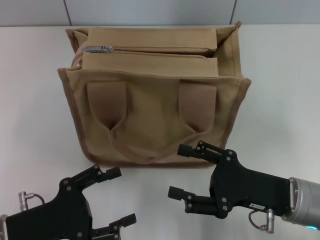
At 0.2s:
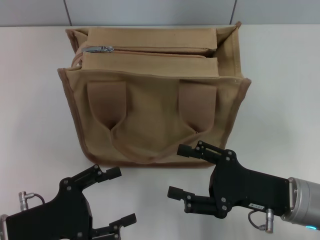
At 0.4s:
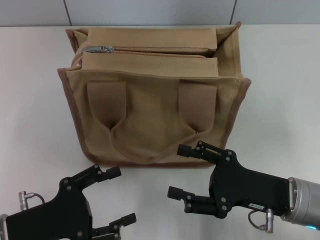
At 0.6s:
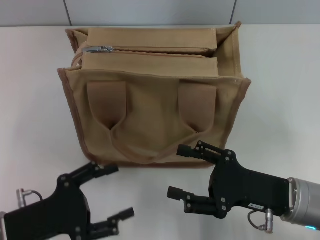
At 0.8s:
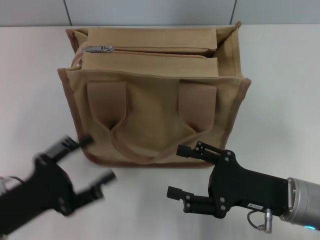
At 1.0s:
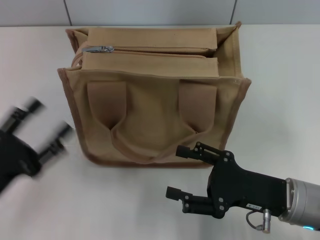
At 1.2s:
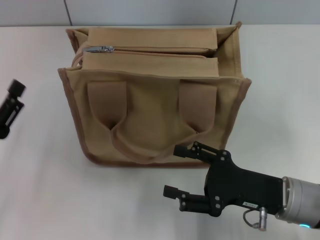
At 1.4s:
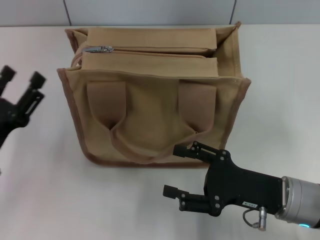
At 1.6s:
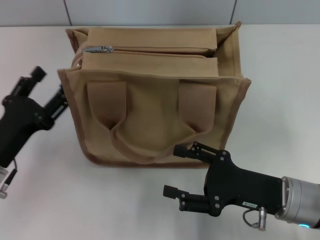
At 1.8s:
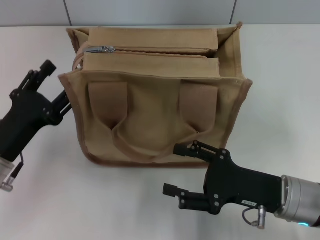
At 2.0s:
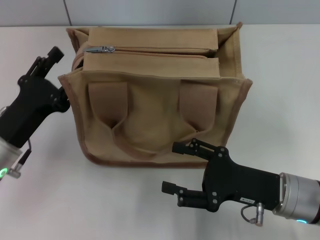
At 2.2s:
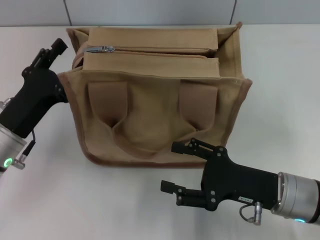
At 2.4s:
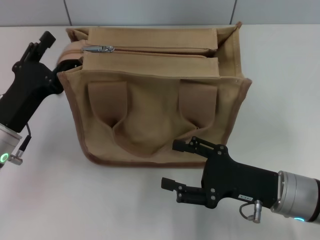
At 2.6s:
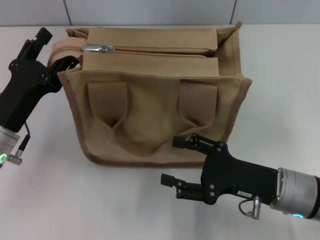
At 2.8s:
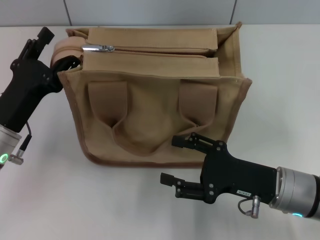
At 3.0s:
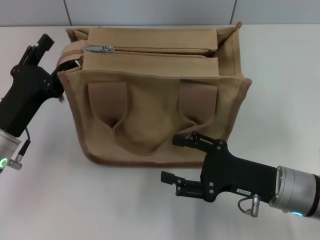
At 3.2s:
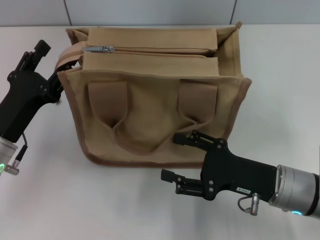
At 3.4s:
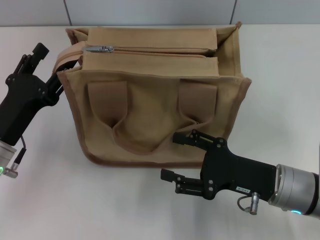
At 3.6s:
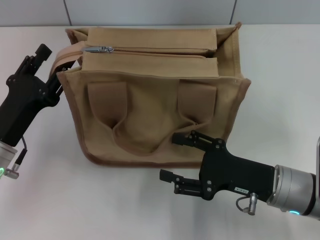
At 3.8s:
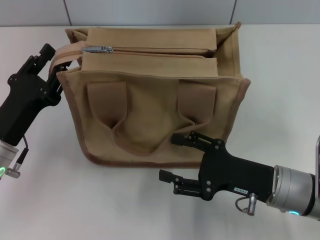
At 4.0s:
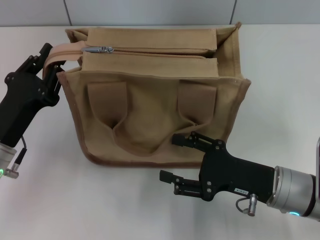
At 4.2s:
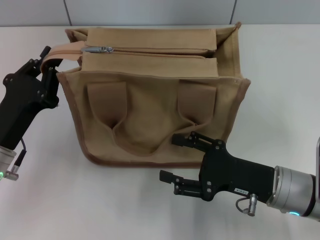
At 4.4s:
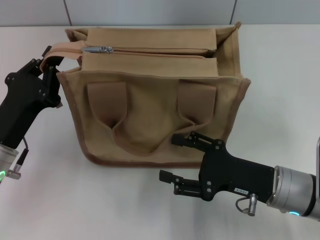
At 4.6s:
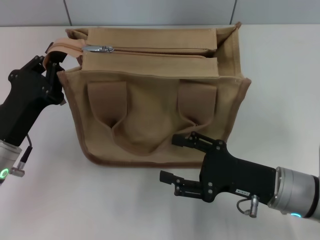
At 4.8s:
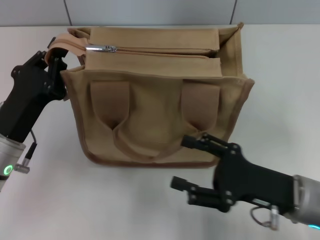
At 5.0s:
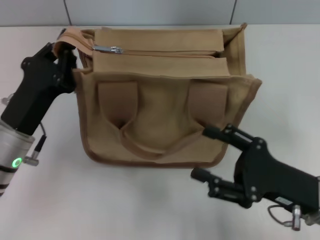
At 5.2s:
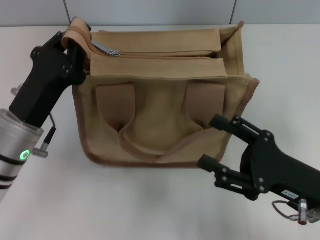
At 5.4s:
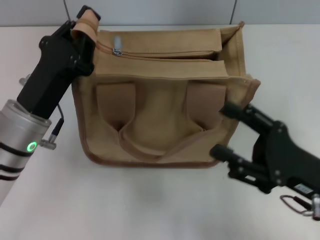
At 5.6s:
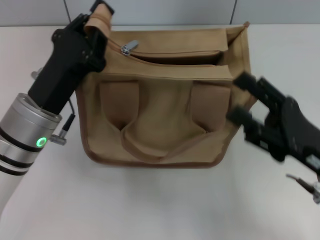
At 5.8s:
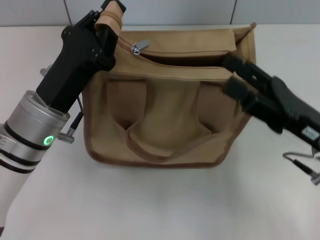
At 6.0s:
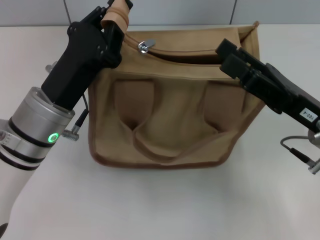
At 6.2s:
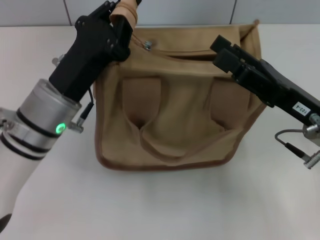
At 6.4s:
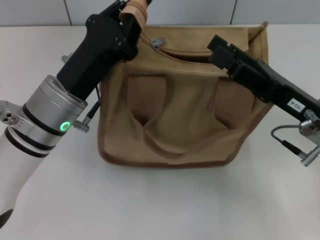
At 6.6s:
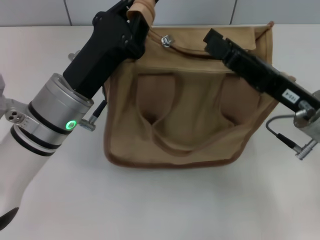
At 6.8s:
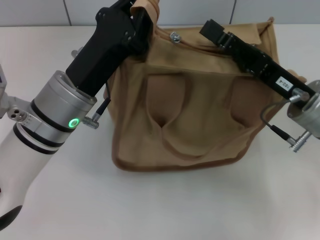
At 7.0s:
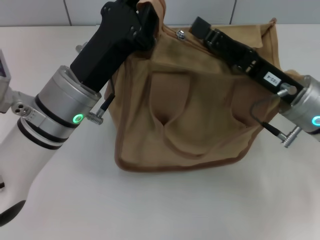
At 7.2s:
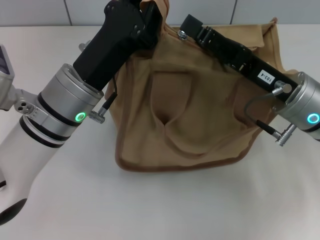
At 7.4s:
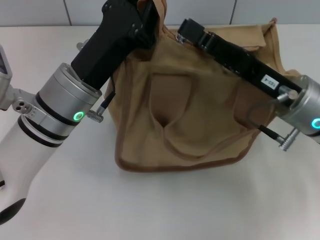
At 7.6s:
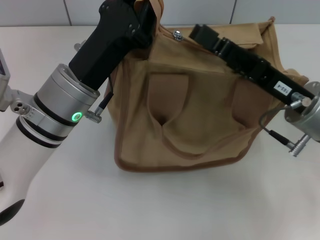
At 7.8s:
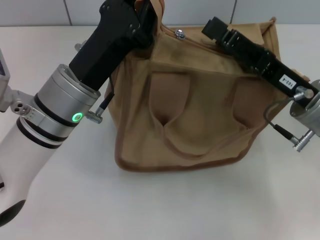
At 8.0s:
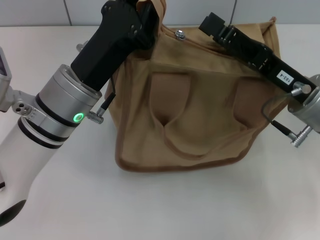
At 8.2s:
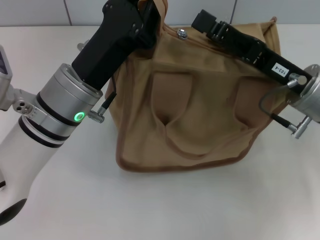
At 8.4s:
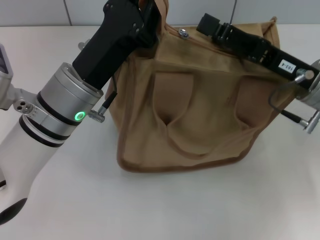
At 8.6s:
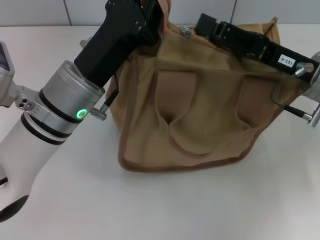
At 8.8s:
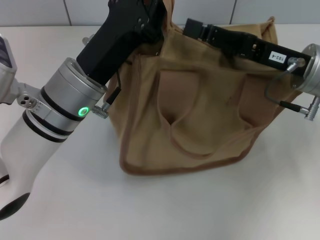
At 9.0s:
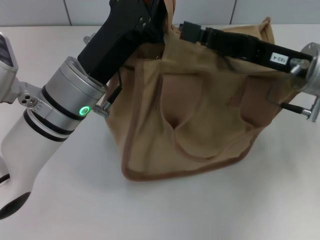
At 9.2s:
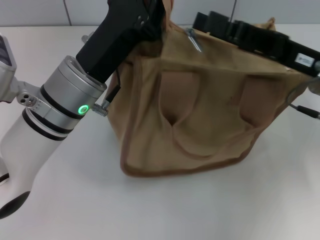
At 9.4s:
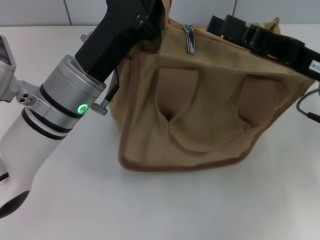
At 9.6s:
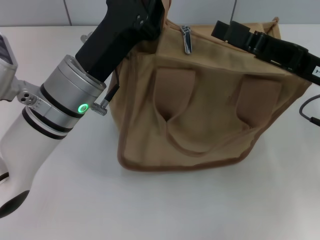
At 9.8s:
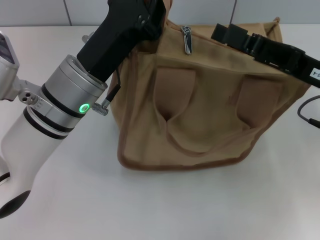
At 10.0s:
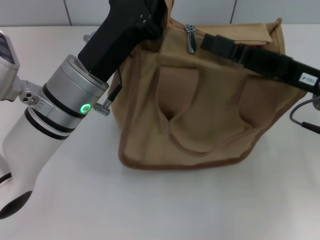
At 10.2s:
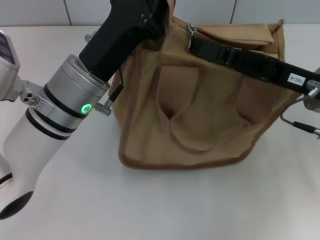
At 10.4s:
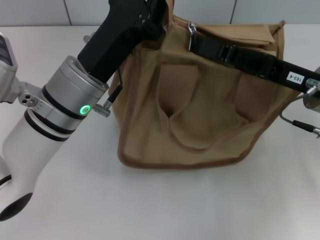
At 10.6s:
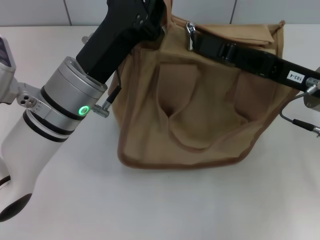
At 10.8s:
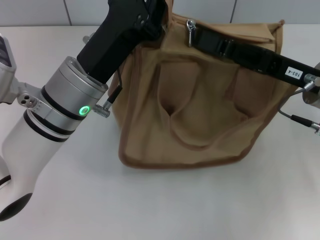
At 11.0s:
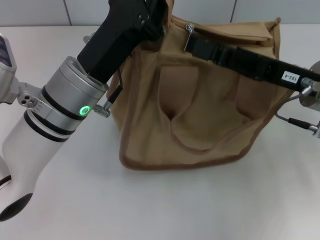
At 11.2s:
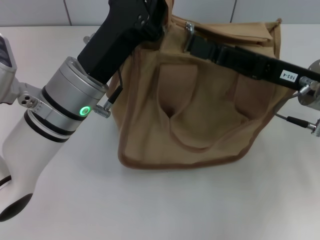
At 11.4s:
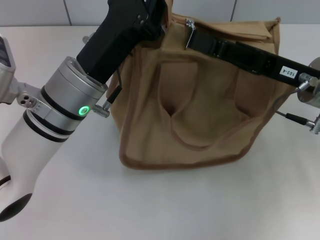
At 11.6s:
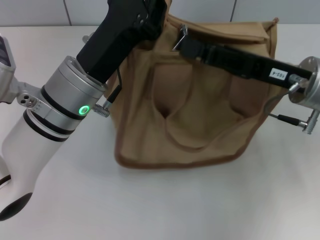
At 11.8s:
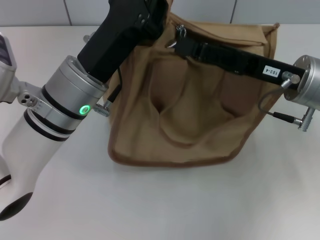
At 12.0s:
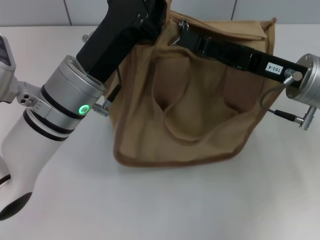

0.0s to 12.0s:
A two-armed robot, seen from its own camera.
0.0s to 1.6s: The left gripper is displaced forward by some 5 cm.
1.6s to 3.0s: The grippers move only a little.
3.0s to 4.4s: The left gripper closes its fingers.
4.4s to 6.0s: The left gripper travels to the right by some 10 cm, while the right gripper goes roughly 5 cm upward.
7.6s to 9.0s: The right gripper moves approximately 5 cm.
9.0s to 12.0s: There are only small adjustments of the grippers.

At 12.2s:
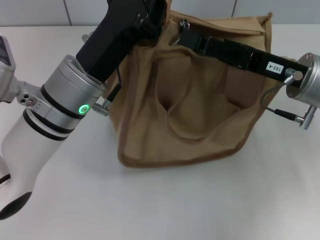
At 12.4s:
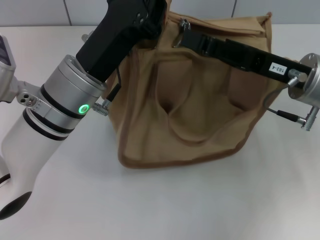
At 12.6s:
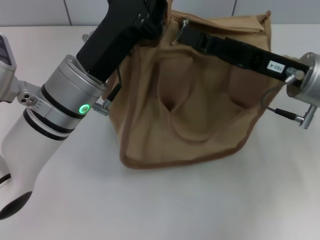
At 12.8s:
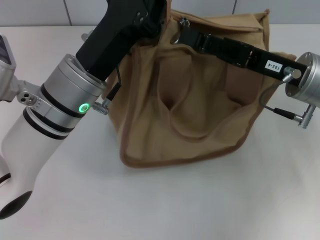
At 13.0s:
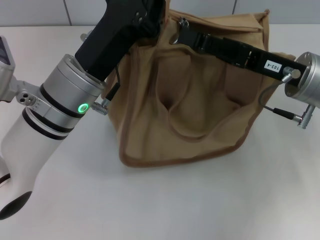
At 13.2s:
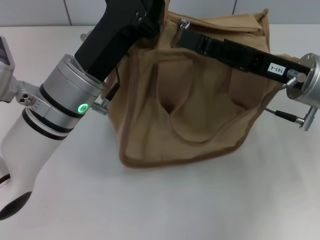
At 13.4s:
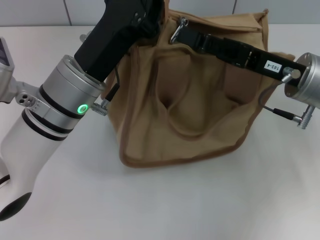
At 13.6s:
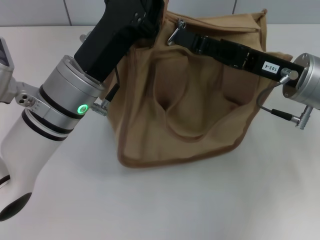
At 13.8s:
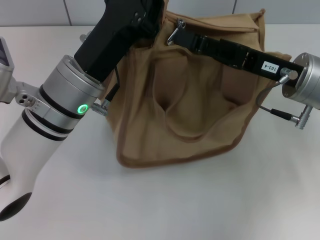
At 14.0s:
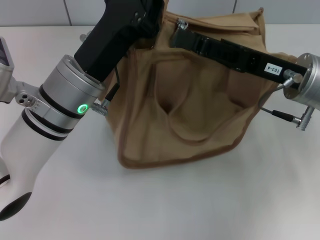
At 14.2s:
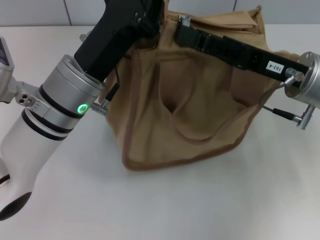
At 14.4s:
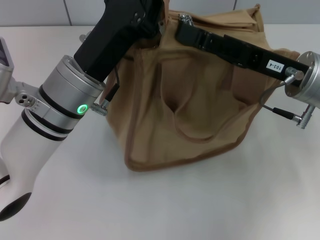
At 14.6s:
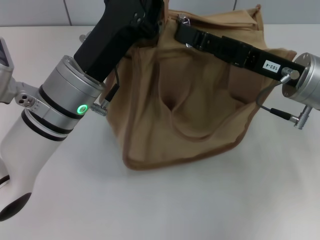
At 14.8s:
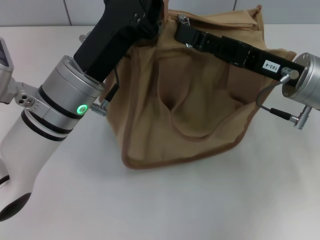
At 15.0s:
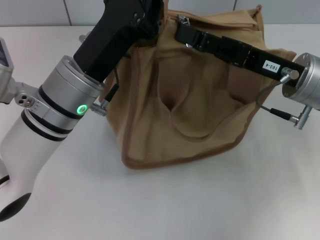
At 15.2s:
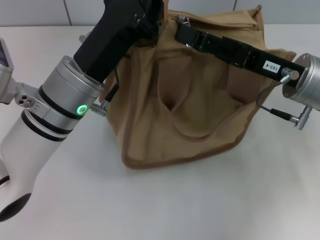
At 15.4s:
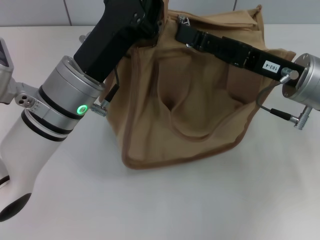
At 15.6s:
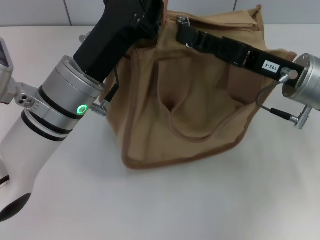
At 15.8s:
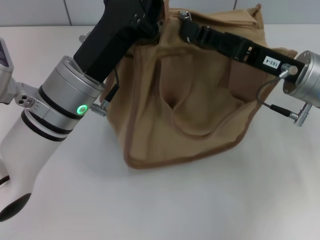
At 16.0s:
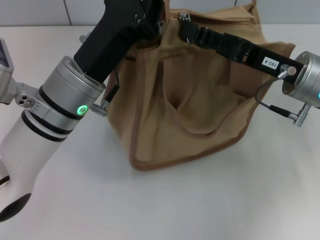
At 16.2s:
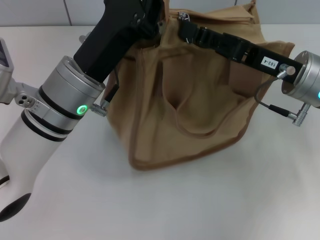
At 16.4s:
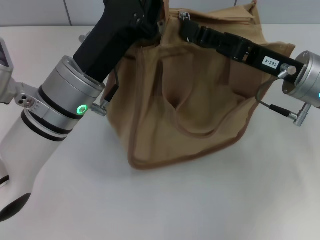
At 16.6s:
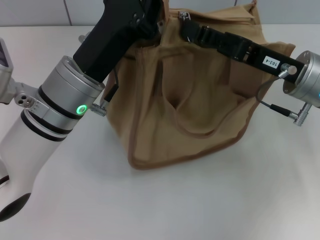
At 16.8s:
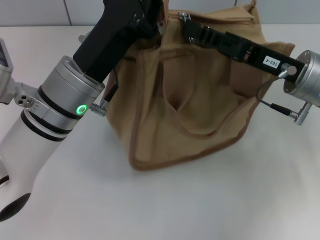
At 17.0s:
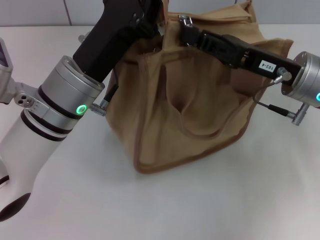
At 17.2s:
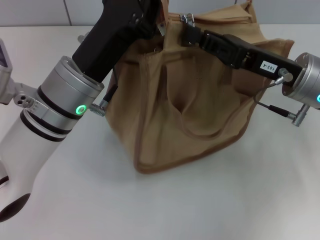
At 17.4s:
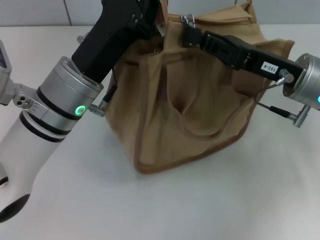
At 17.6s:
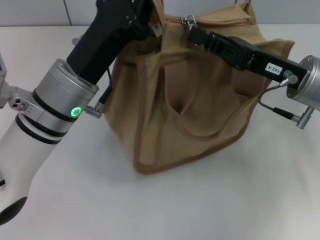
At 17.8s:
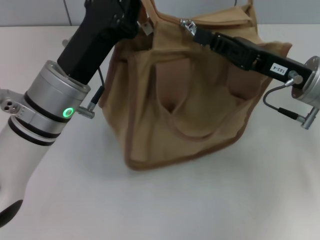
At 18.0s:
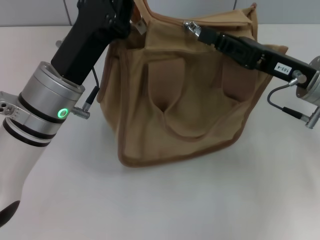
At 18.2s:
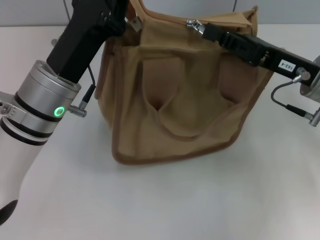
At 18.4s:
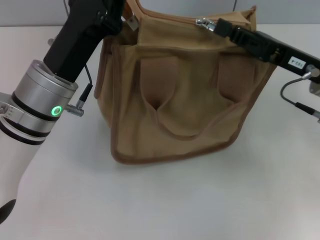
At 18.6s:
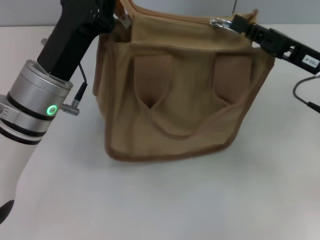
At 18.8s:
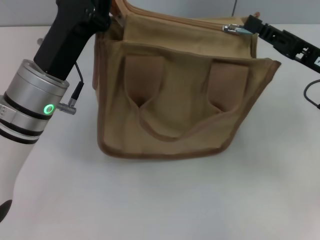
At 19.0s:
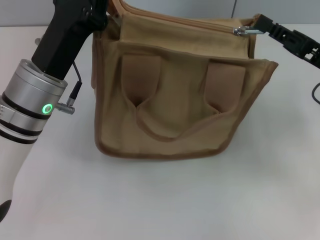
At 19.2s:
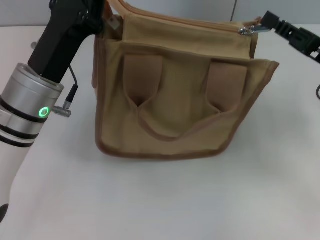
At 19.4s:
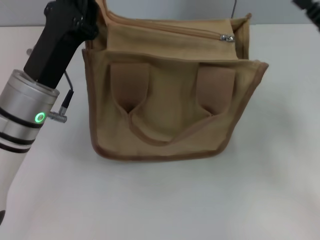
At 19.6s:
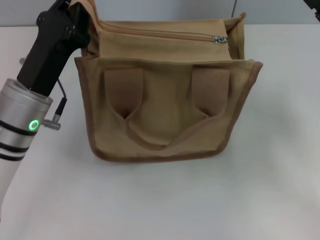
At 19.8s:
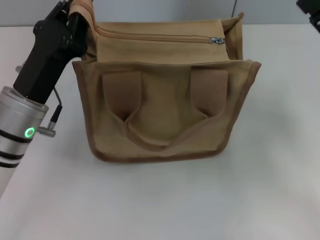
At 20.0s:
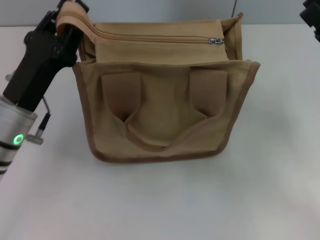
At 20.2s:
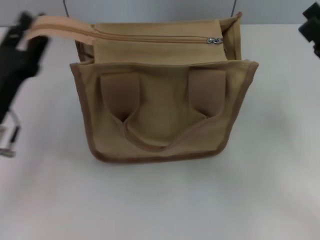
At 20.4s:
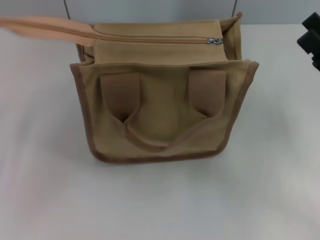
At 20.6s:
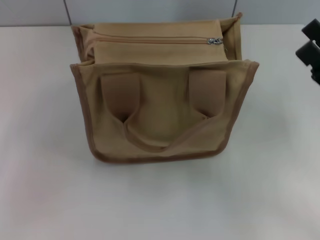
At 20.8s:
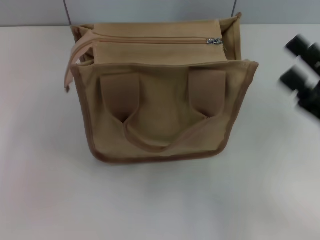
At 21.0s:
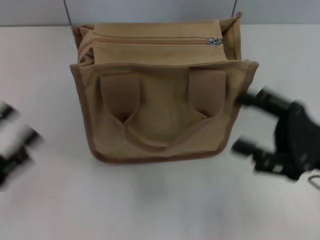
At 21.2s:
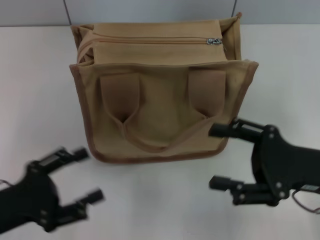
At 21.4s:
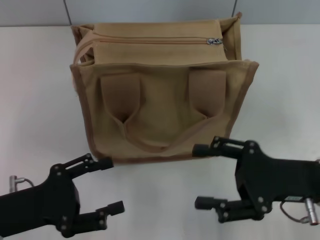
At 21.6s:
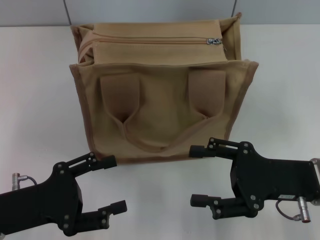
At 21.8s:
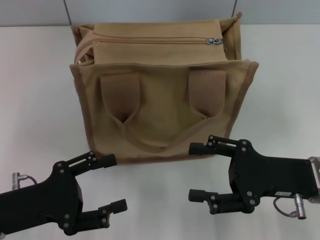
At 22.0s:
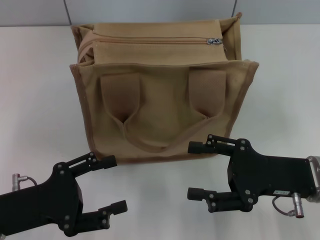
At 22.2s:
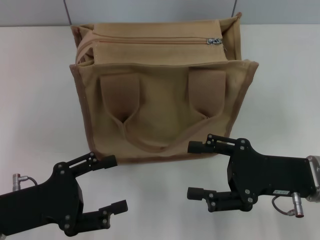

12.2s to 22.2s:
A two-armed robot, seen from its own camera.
Step, 12.2s to 19.2s: Pull up the zipper with your right hand.
Step, 19.4s to 20.4s: Grab the zipper with your left hand.
12.2s to 15.0s: The two grippers keep their place.
15.0s to 16.4s: The right gripper closes.
16.4s to 18.0s: The right gripper closes up.
18.0s to 19.4s: The right gripper travels to the right by some 5 cm.
19.4s to 20.8s: The left gripper goes roughly 20 cm to the left and backward, and opens up, while the right gripper goes about 5 cm backward, and opens its fingers.
20.8s to 22.2s: The right gripper is displaced to the left by about 5 cm. Meanwhile the left gripper moves to the right, approximately 10 cm.
